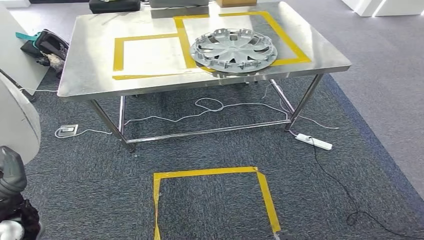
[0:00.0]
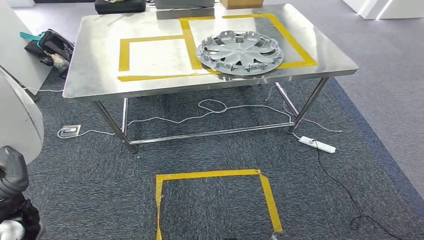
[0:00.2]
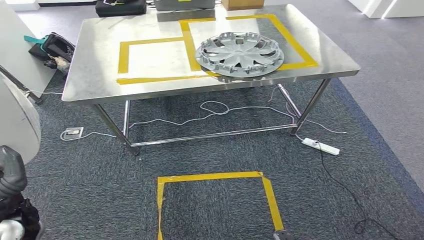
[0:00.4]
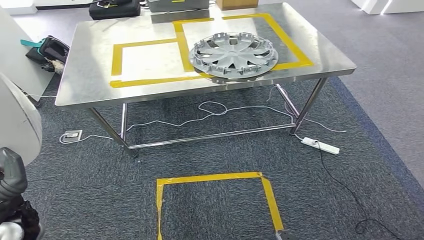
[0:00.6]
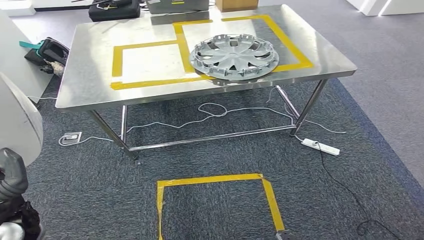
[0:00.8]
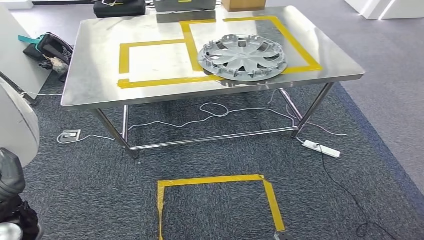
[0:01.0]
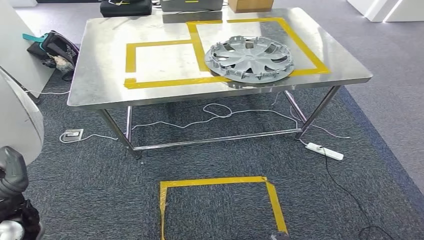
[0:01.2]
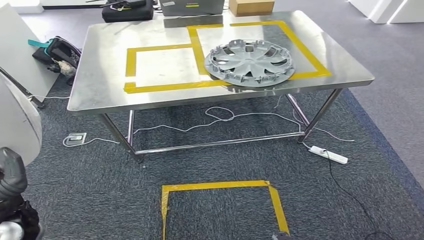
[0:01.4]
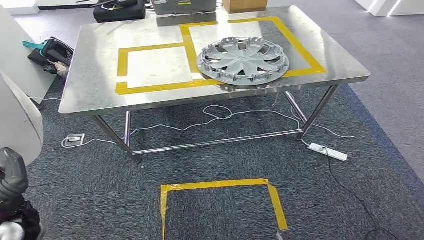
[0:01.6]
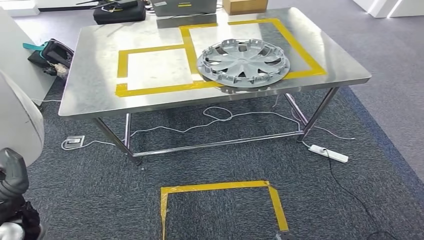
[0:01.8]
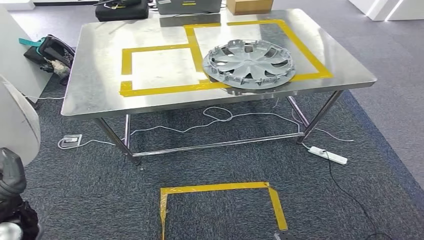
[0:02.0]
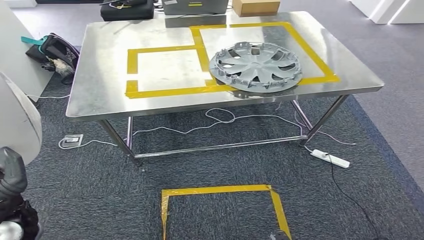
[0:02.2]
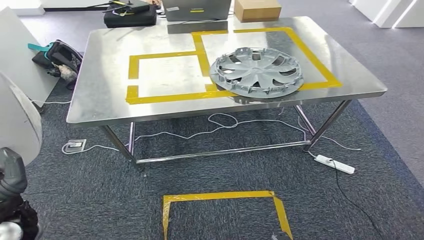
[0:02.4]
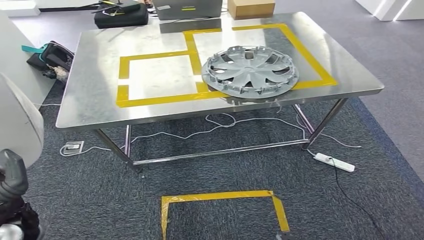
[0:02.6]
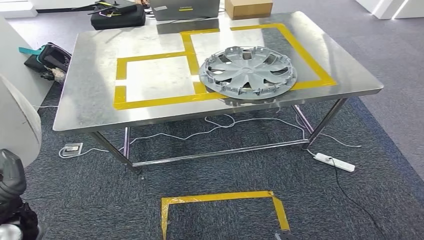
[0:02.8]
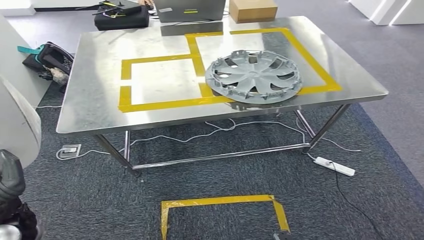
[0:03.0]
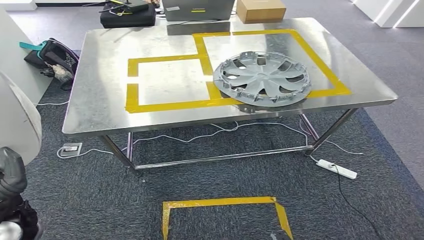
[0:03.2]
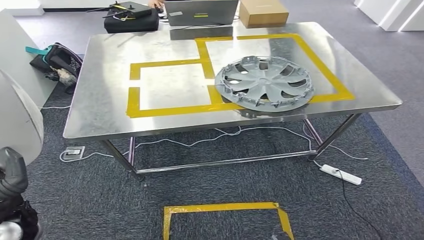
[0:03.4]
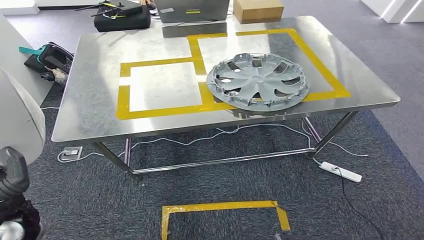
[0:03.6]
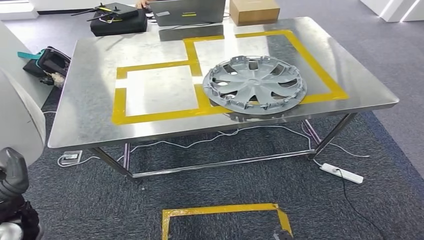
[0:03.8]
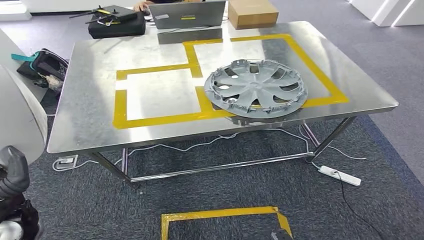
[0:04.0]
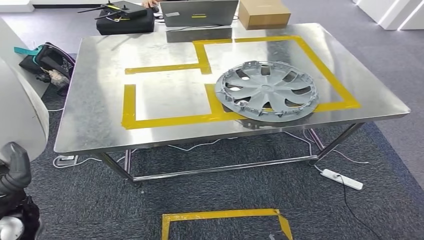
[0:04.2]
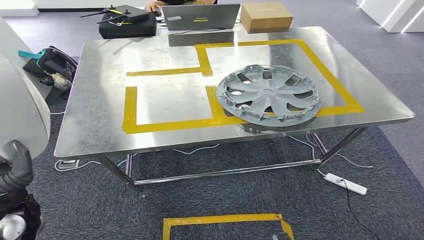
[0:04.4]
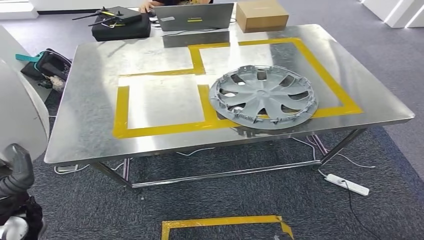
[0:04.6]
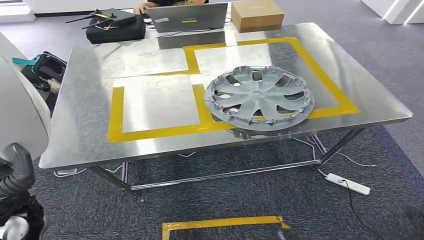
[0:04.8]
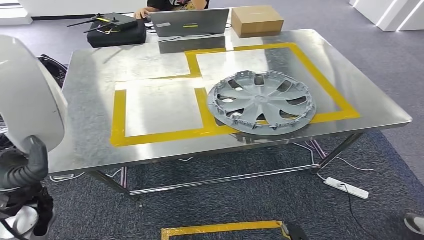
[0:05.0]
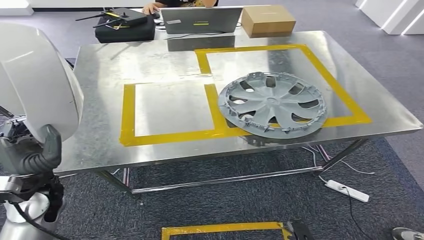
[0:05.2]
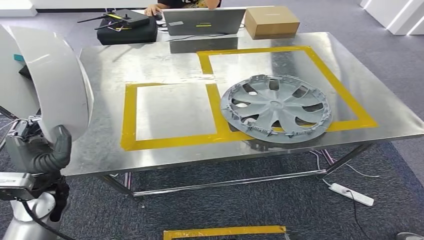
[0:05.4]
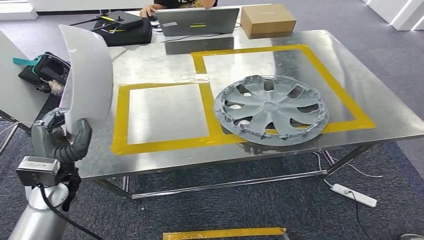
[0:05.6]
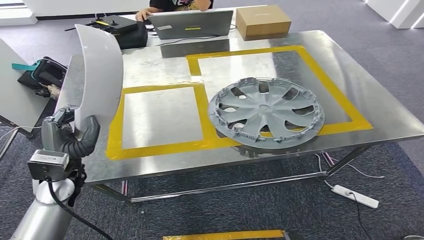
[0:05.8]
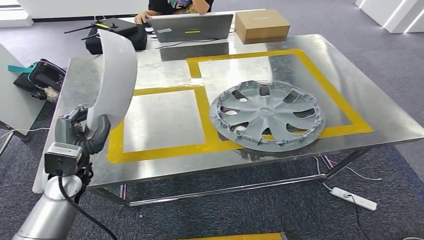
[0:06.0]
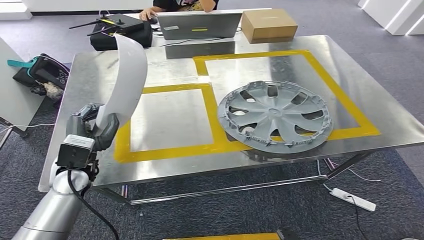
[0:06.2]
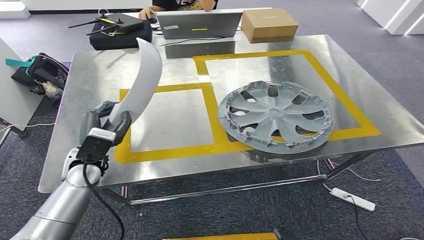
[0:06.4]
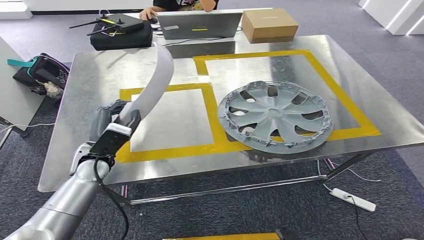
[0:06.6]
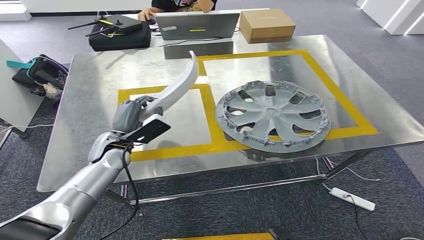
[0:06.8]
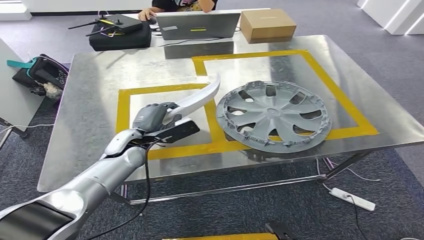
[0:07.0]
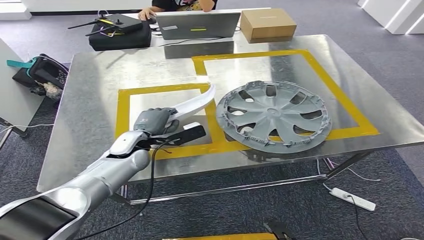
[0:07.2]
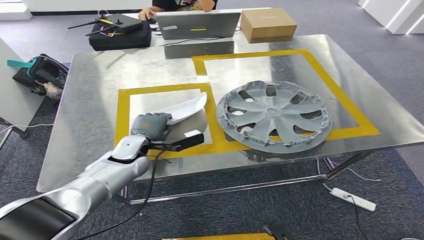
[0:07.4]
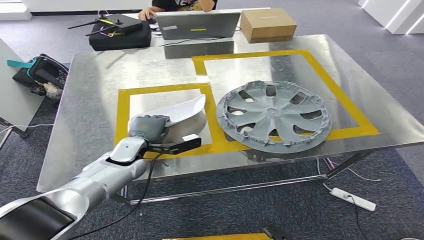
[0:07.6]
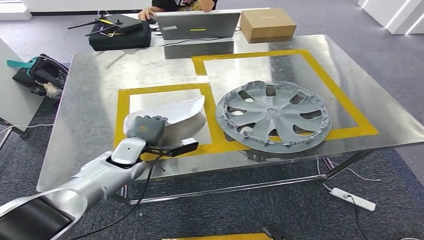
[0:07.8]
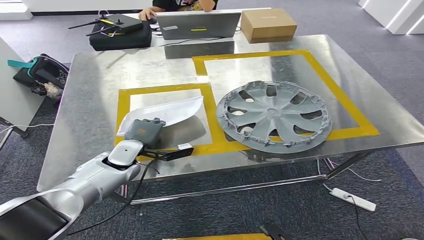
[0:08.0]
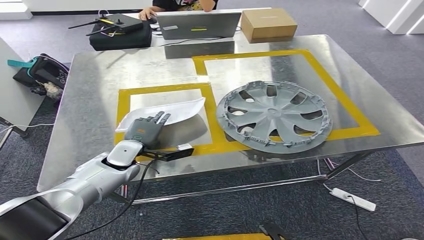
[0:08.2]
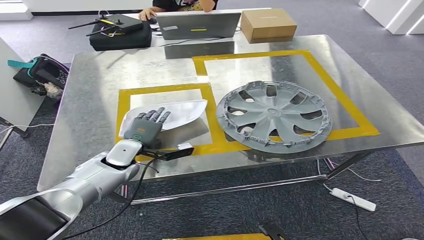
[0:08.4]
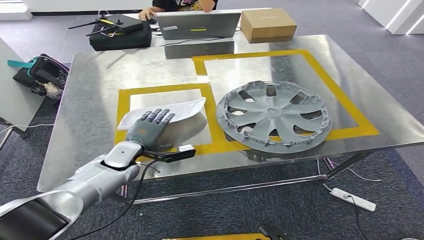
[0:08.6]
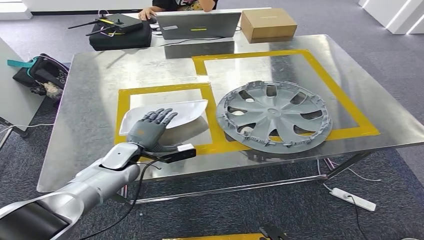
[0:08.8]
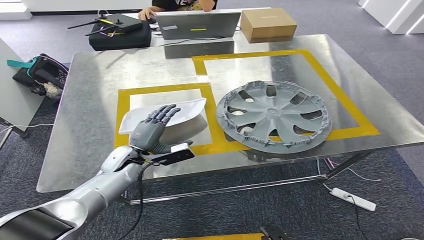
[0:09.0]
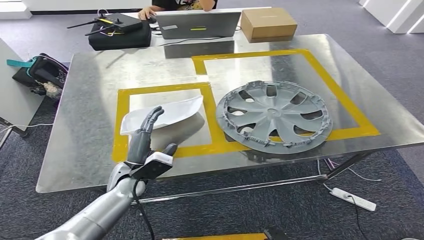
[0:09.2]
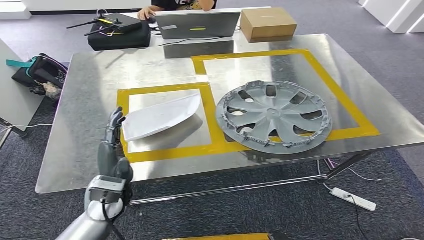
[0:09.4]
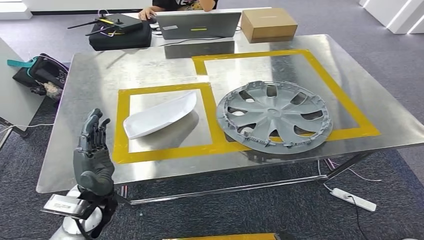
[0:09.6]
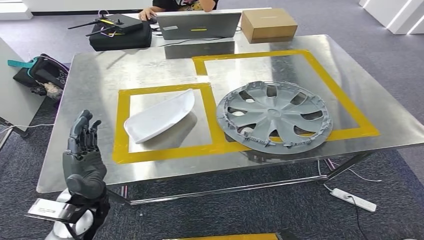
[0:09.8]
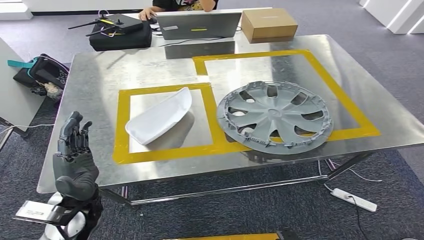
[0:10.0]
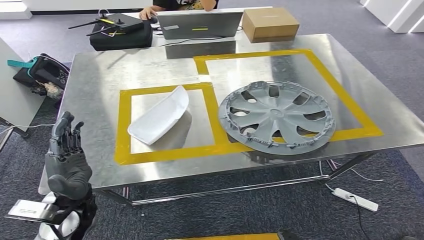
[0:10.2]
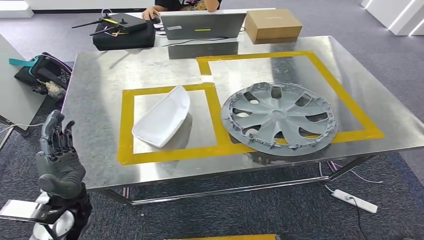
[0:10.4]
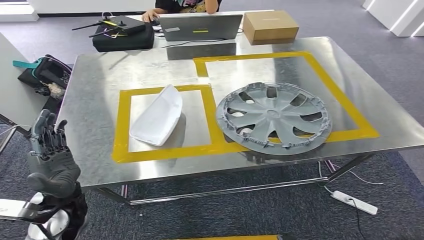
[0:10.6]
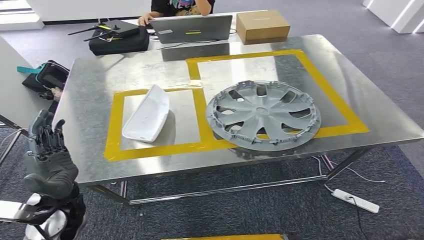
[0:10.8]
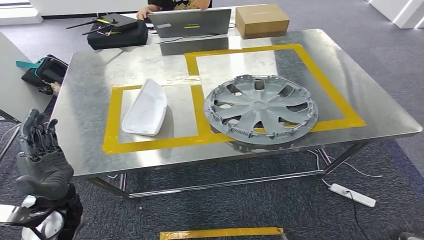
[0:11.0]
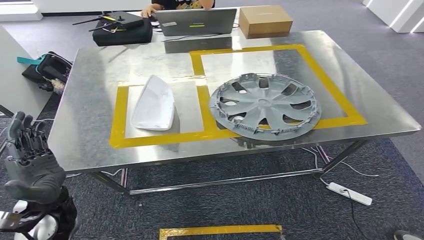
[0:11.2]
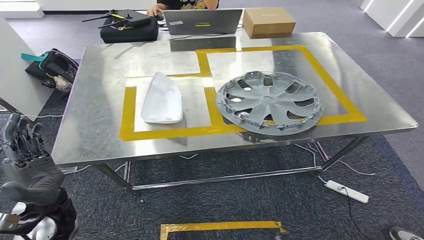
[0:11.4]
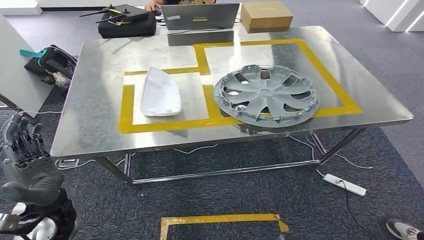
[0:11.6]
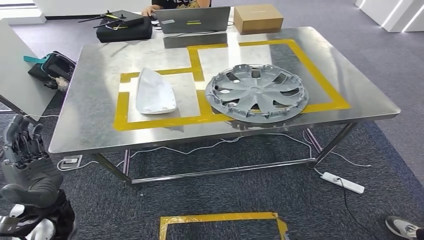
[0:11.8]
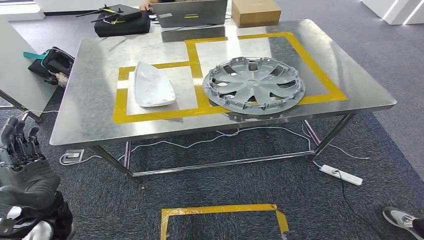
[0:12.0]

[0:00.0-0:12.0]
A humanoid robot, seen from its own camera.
Step, 0:00.0 to 0:10.6: Insert the small parts into the corresponding holes on the workbench.

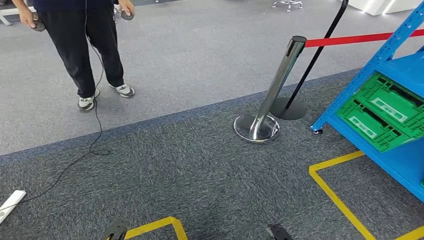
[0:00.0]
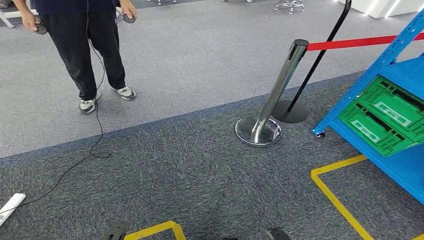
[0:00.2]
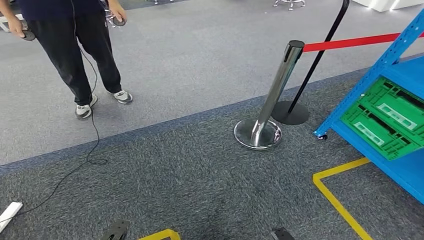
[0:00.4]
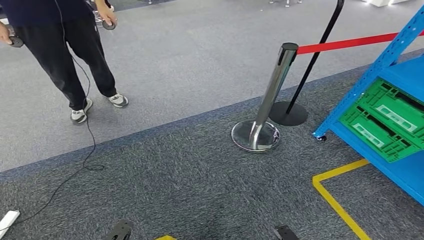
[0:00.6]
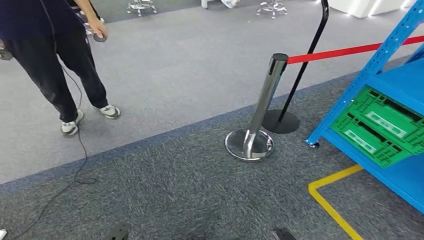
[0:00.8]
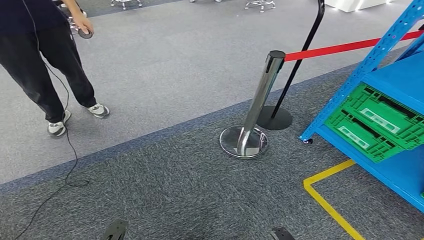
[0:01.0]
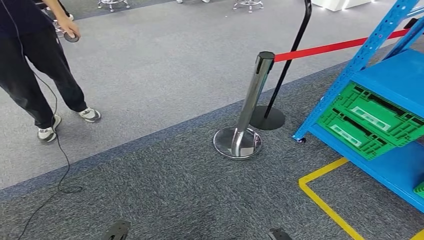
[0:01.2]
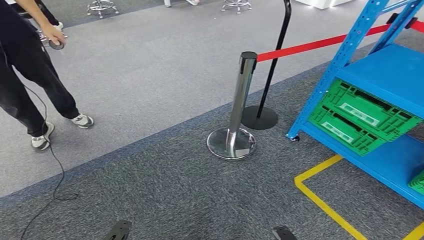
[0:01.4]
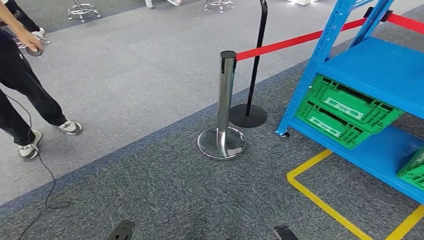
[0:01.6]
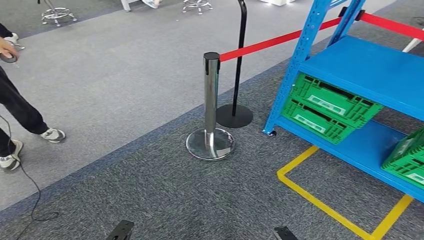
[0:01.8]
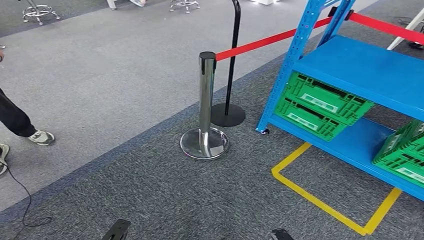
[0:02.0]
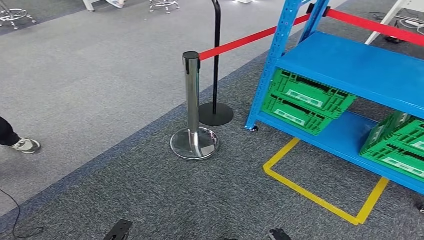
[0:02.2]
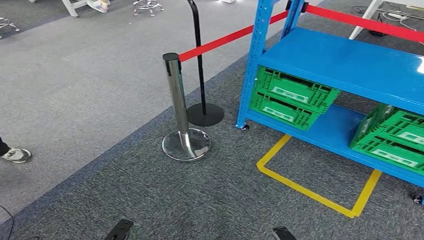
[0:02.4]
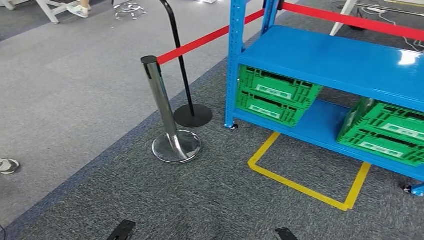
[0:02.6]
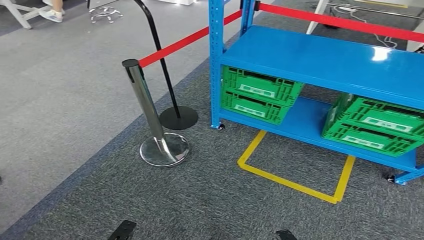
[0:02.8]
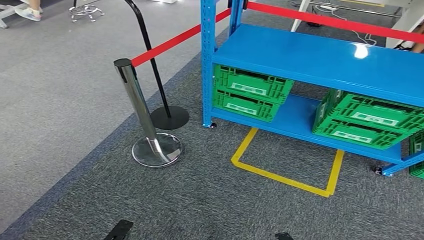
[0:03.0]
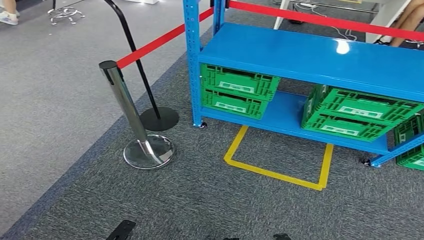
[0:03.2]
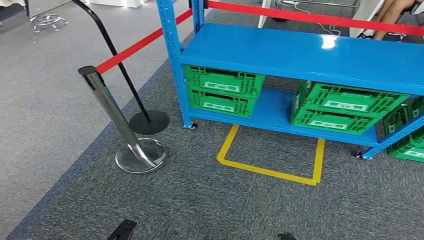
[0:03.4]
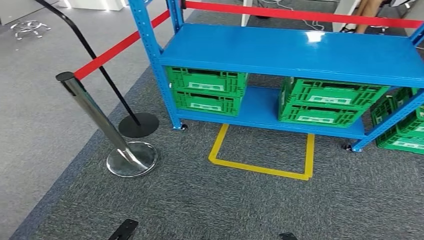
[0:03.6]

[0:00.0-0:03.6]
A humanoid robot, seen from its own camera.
Step, 0:00.0 to 0:03.6: Move to the initial position at the workbench.
